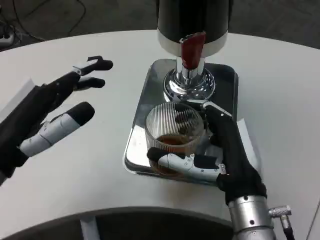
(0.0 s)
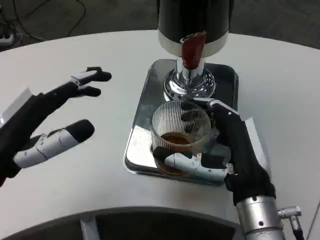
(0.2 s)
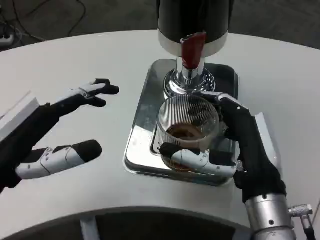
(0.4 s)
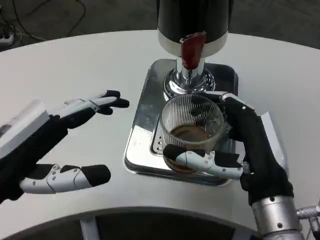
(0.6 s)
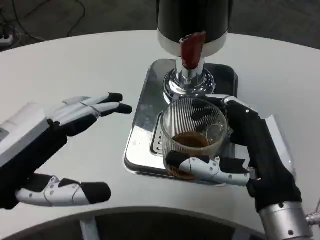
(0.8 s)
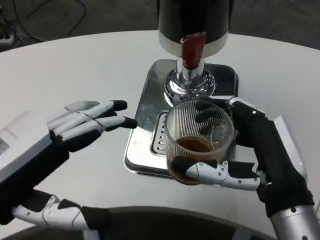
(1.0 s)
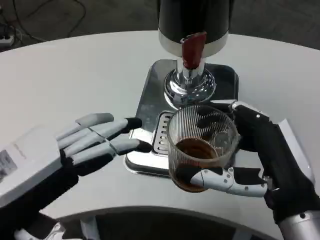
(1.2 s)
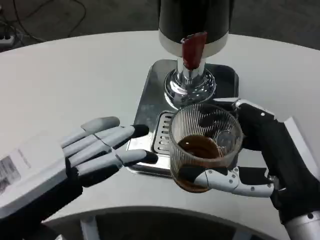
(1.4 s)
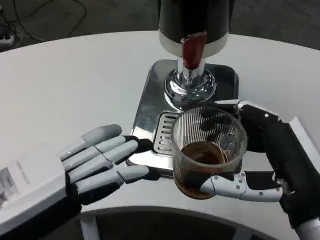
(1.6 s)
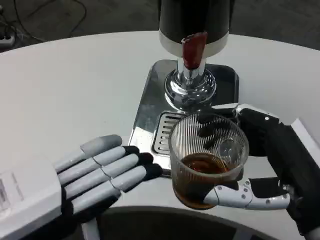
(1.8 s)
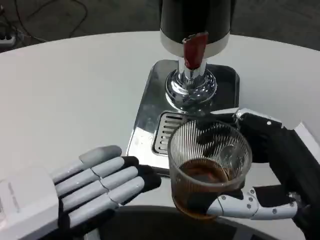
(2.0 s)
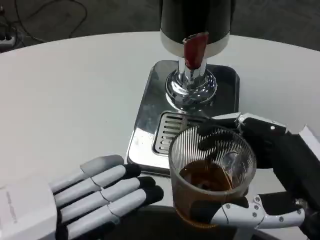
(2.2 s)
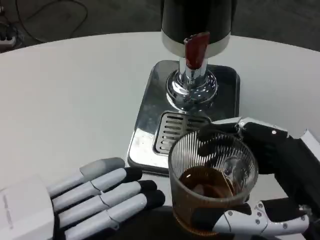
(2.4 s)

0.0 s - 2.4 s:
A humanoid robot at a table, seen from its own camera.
Task of the whole recording: Grasp the cup under the faucet to collect the drink, then remove the cup.
0.0 s - 1.2 s: The right hand heads to the right, covering approximately 5 cm, while the left hand travels backward by about 5 cm.
1.2 s - 2.4 s: Both hands travel together backward, about 5 cm.

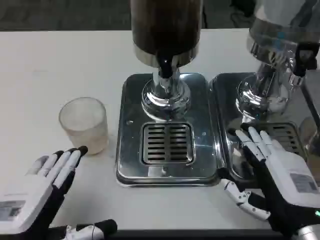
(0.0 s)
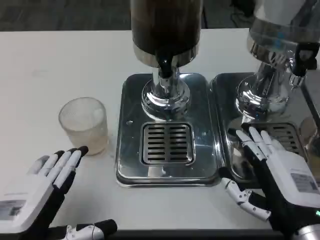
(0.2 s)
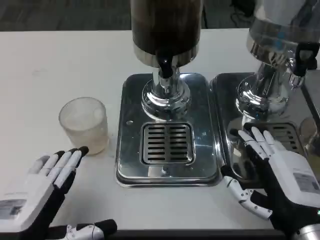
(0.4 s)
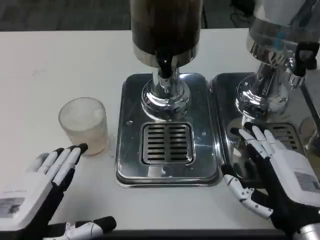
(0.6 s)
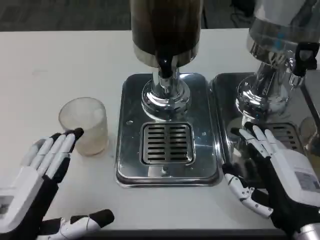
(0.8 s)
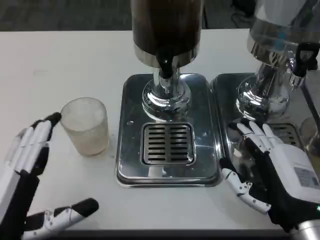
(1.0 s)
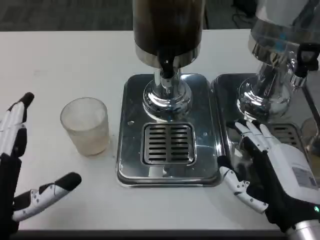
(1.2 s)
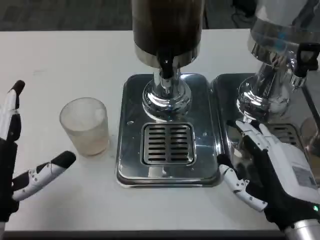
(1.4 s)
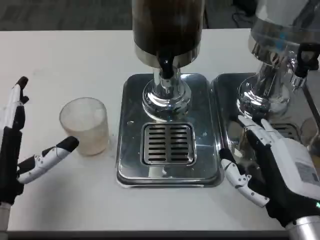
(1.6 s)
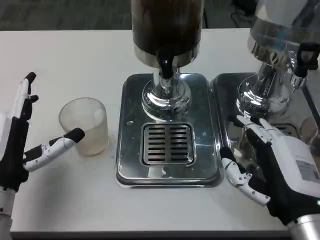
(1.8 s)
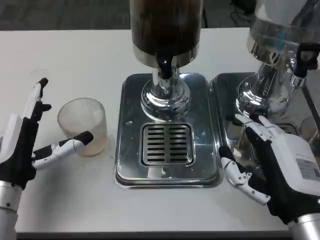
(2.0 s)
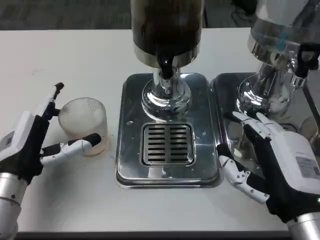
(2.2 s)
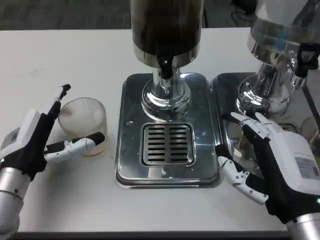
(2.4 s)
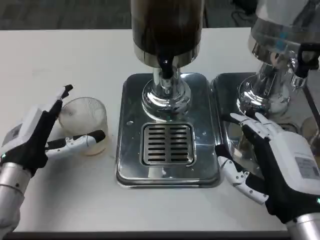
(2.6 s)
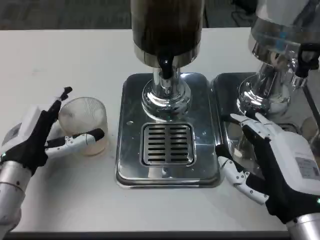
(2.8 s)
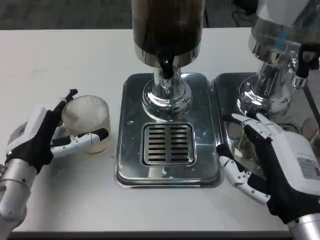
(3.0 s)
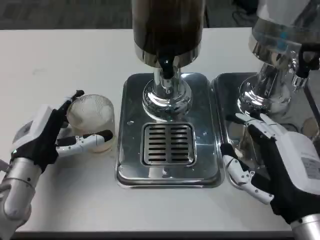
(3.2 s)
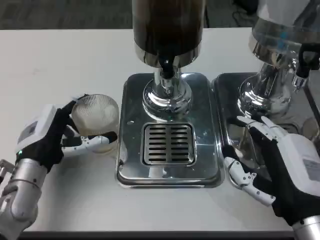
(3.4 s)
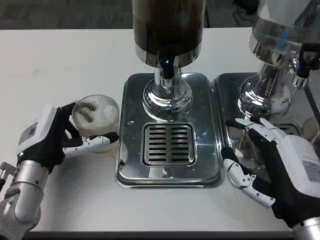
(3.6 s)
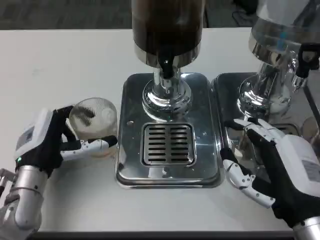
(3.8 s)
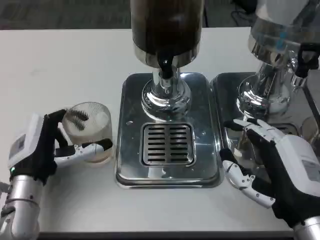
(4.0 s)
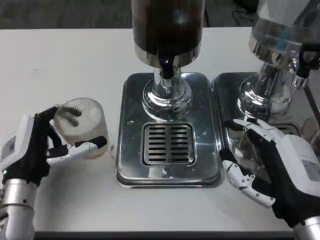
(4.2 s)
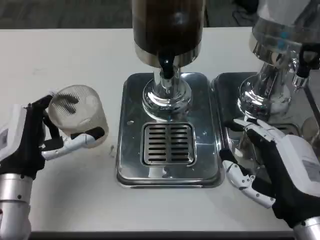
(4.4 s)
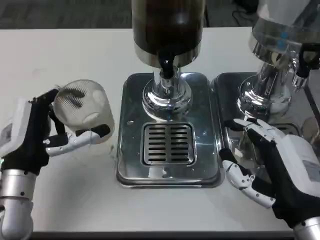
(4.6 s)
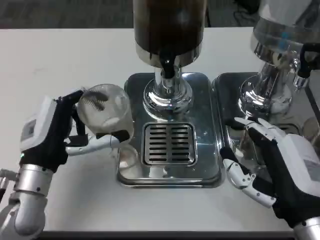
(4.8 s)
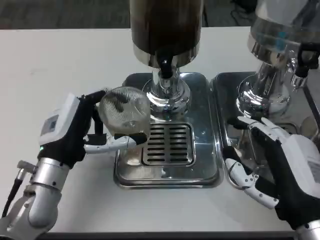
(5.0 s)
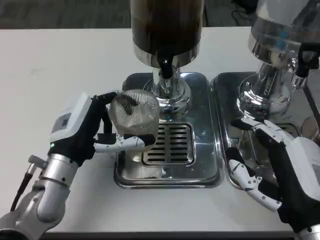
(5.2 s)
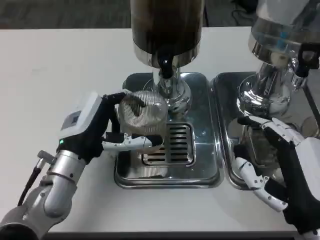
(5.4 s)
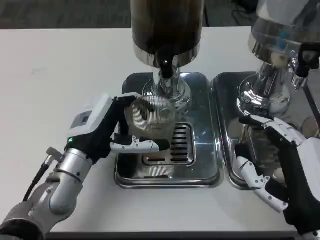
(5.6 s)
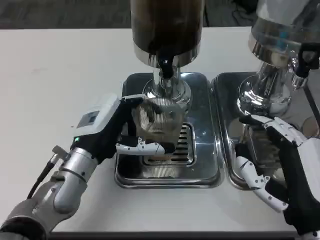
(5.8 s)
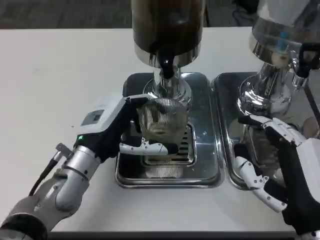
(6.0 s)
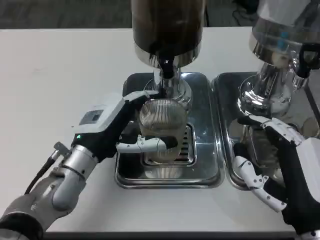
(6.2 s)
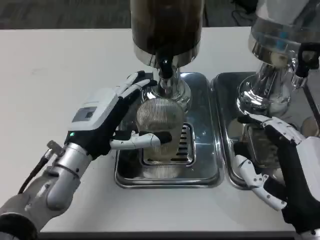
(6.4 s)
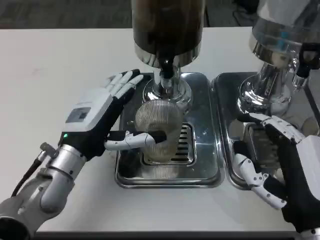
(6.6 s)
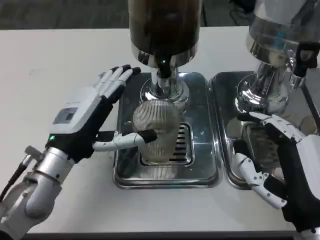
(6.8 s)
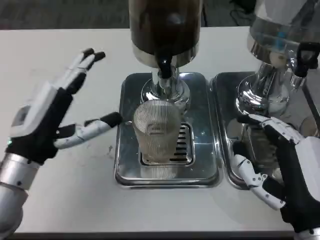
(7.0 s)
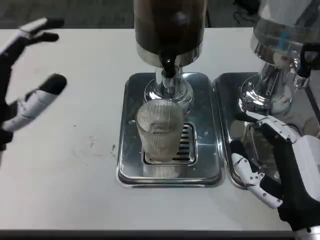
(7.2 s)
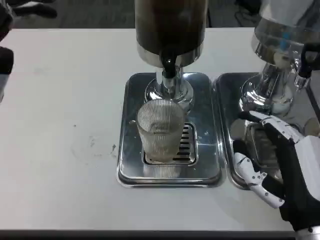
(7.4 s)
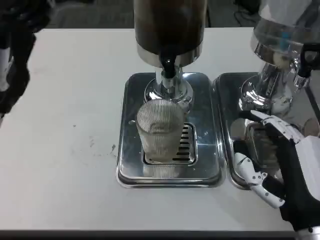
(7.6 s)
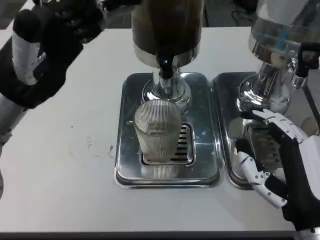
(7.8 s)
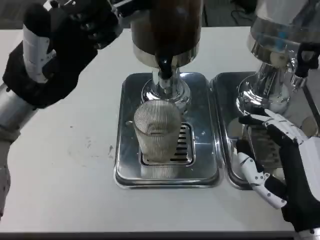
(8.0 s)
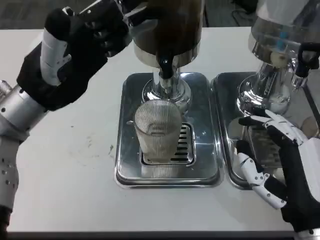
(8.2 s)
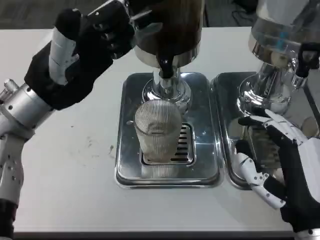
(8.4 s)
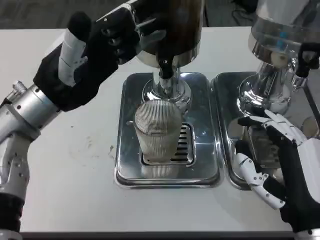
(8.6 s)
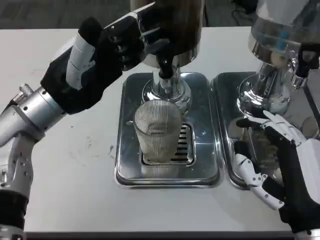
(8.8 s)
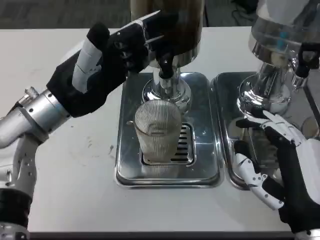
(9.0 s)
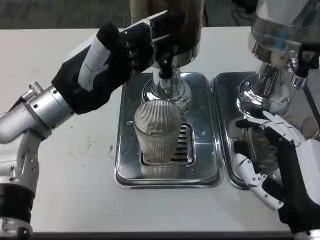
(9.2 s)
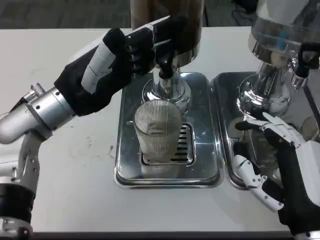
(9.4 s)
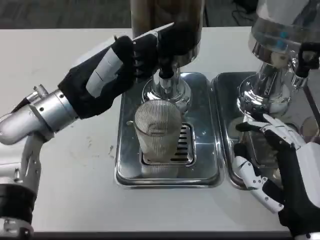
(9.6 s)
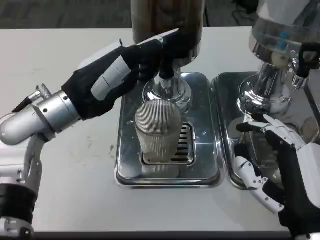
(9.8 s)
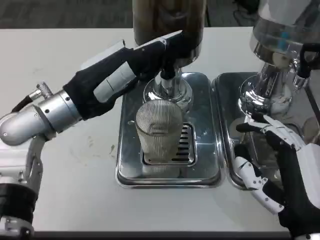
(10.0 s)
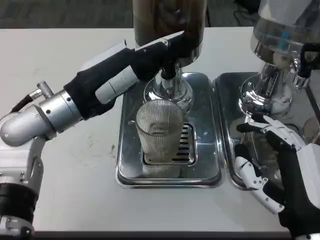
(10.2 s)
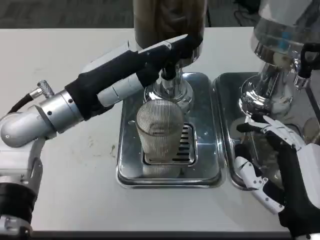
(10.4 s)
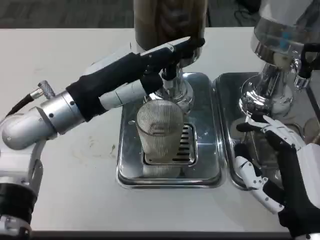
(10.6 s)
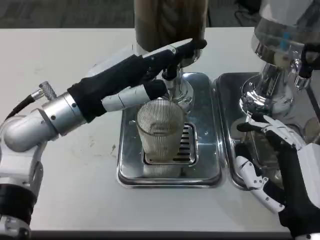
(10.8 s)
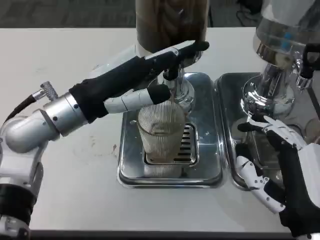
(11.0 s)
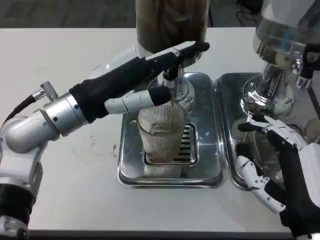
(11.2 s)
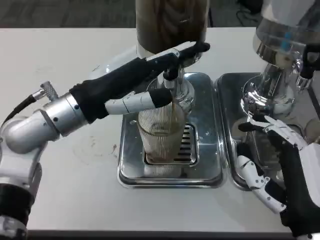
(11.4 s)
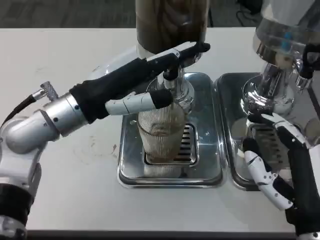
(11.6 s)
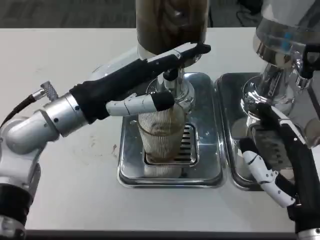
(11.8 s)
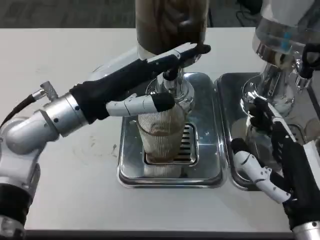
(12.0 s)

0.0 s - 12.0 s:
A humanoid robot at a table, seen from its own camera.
Task of the whole recording: Grasp the cup under the faucet to collect the drink, then remove the cup.
0.0 s - 1.6 s: The left hand travels forward by some 10 cm.
1.6 s - 3.0 s: The left hand goes some 5 cm forward.
4.4 s - 6.0 s: The left hand shifts roughly 5 cm to the right.
6.0 s - 7.6 s: The left hand shifts about 15 cm upward and to the left.
7.6 s - 9.0 s: The left hand is displaced forward by approximately 5 cm.

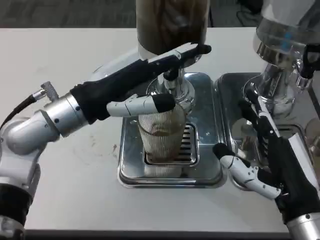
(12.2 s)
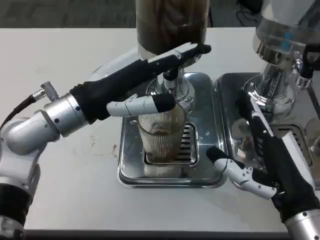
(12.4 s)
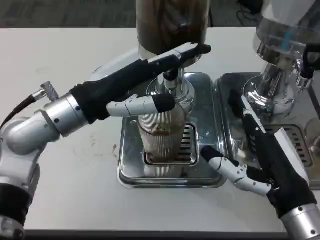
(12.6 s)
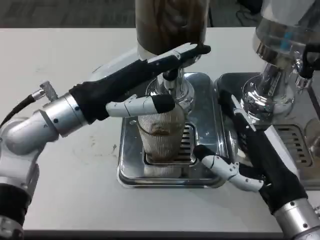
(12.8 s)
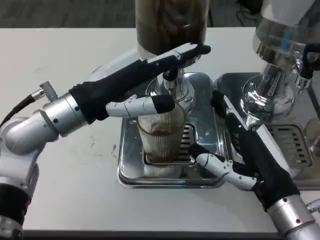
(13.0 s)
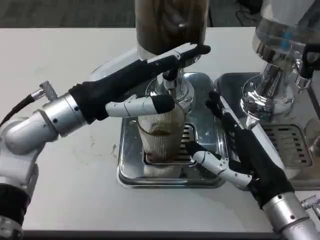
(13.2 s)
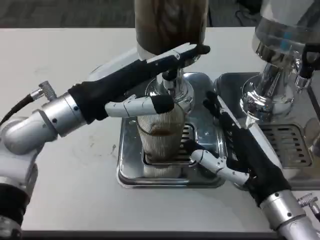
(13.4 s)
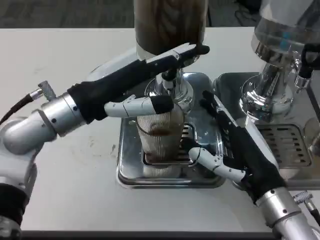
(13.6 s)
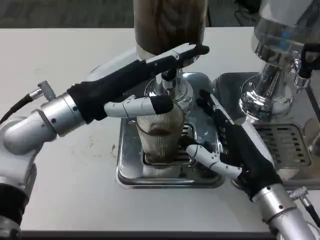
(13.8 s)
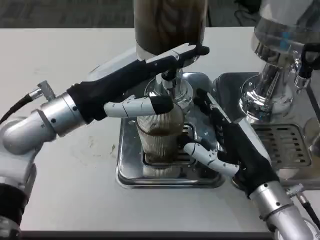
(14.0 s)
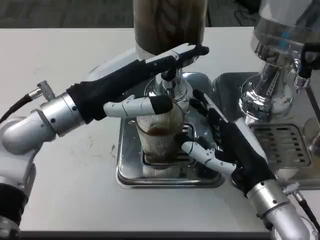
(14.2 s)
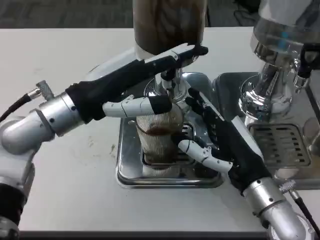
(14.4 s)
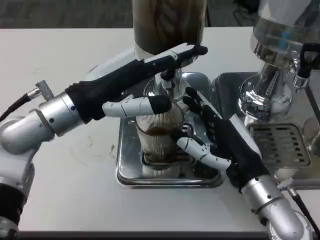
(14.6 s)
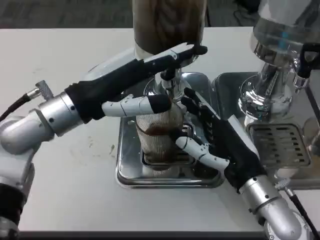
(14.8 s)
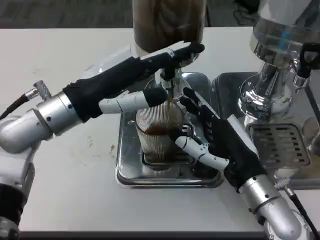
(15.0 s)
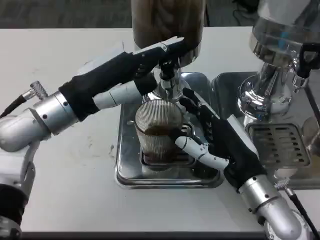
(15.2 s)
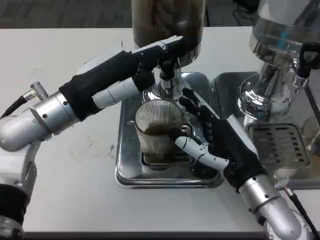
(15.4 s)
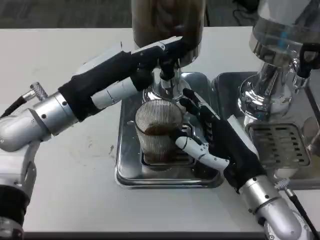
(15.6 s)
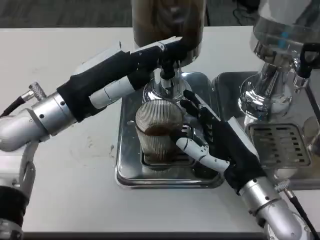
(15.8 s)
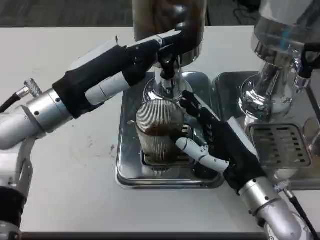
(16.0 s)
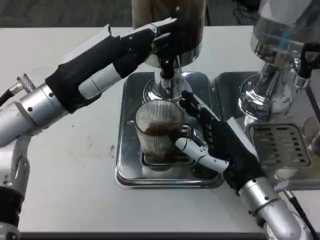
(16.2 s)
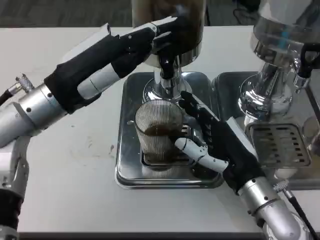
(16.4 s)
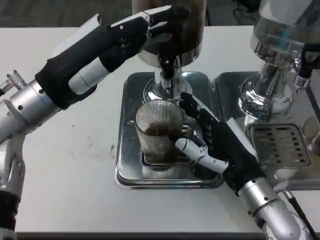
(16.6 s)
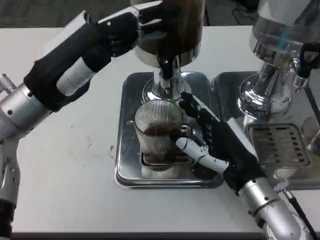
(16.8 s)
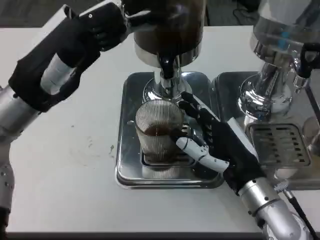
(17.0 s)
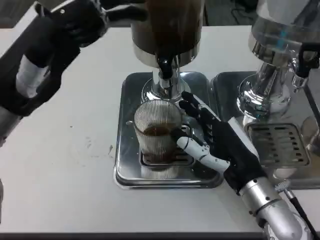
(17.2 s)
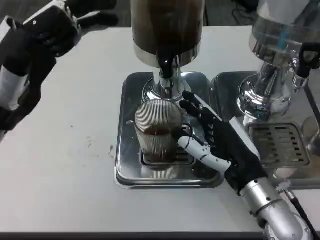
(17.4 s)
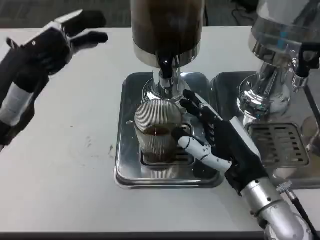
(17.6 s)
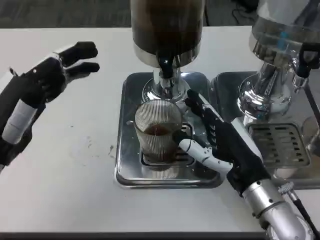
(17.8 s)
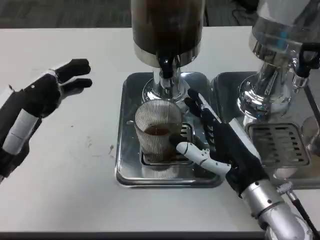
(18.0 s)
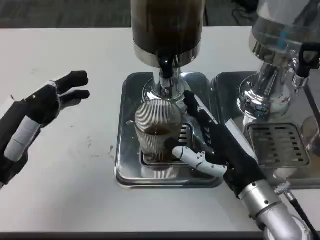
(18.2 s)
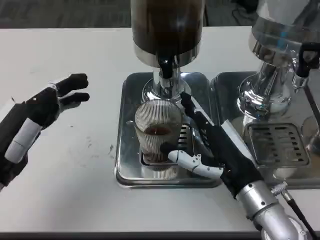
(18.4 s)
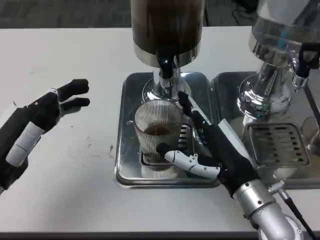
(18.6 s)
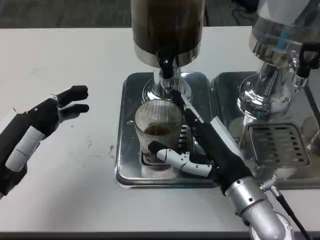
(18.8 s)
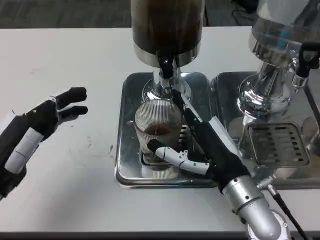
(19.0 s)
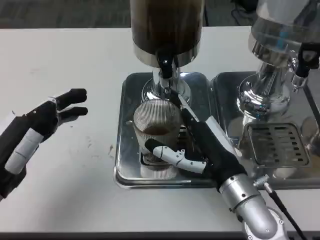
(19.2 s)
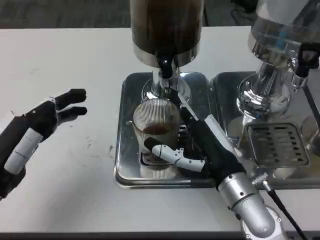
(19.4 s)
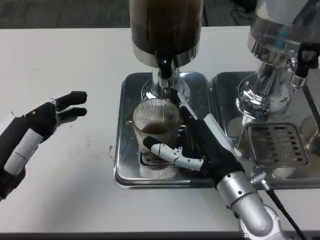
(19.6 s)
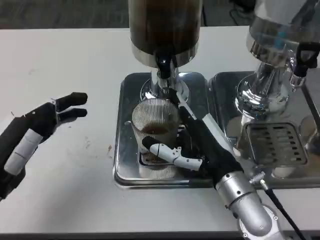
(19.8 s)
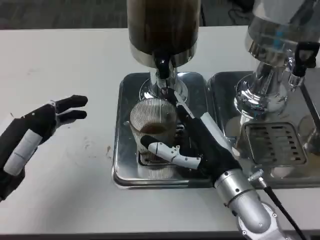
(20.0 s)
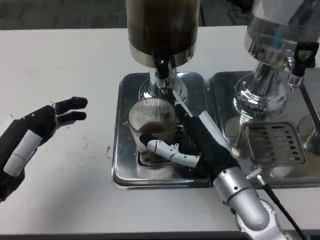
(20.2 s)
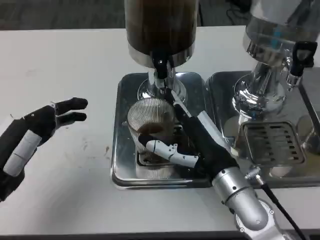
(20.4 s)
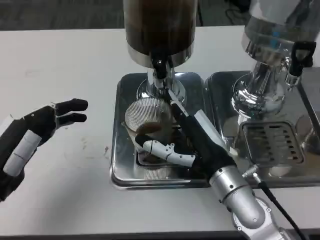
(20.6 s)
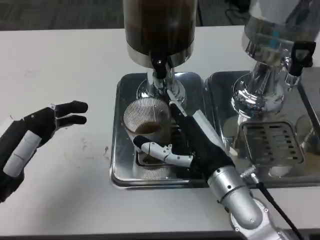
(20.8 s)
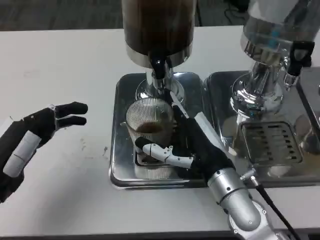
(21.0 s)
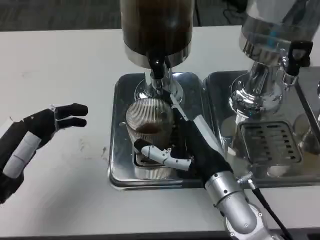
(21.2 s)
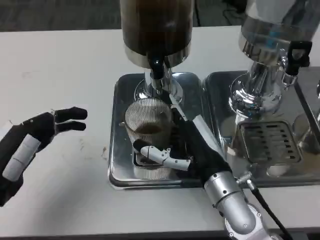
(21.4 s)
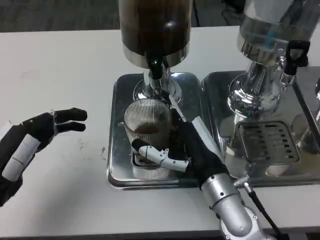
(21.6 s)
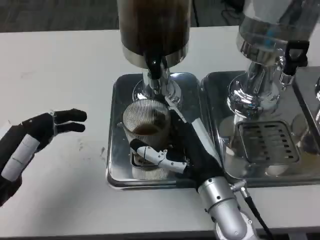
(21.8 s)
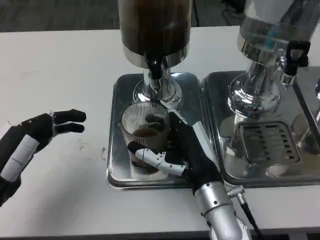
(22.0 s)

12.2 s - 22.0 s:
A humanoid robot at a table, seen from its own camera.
Task of the whole recording: Grasp the cup under the faucet to collect the drink, then remove the cup.
16.4 s - 17.8 s: The left hand heads backward, to the left and downward, covering roughly 10 cm.
